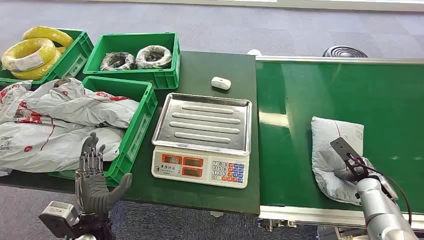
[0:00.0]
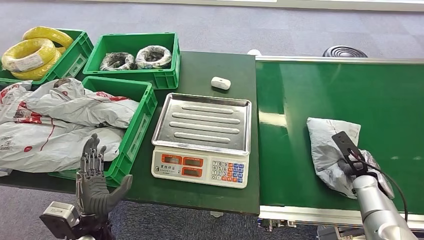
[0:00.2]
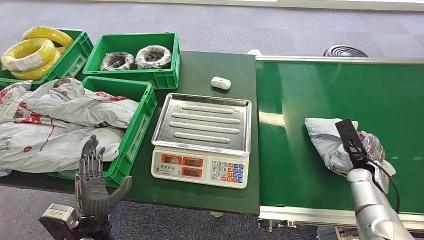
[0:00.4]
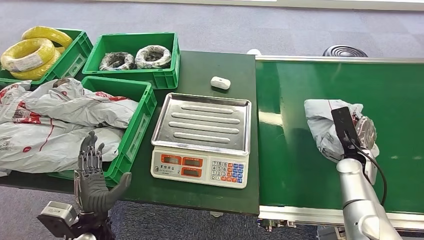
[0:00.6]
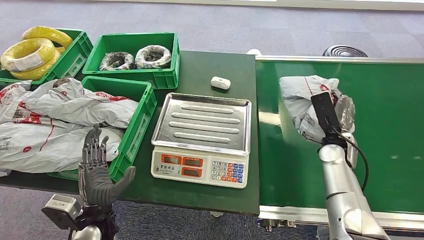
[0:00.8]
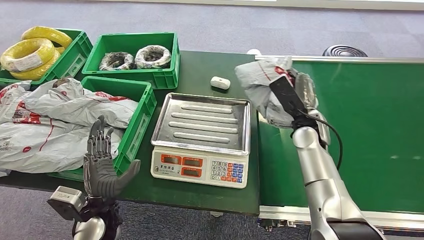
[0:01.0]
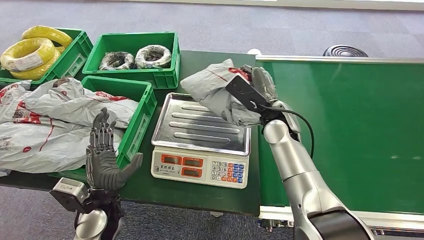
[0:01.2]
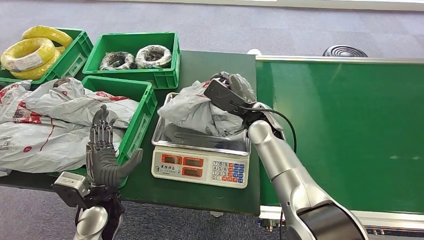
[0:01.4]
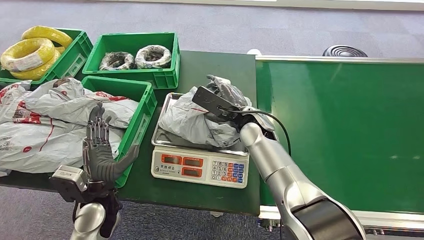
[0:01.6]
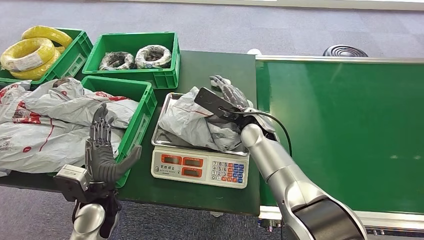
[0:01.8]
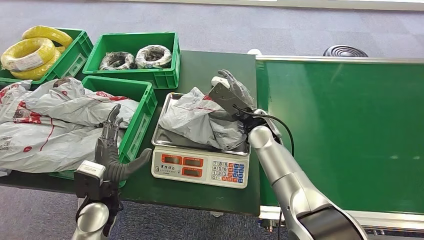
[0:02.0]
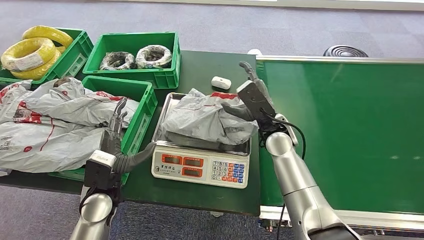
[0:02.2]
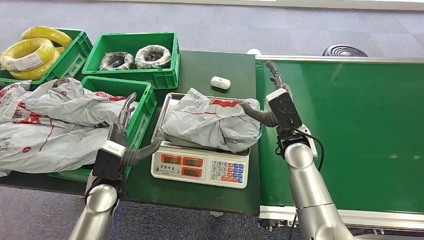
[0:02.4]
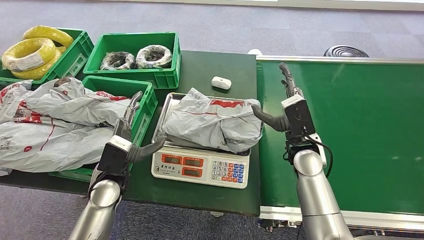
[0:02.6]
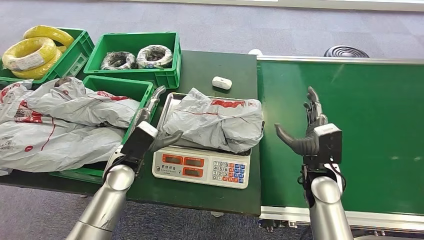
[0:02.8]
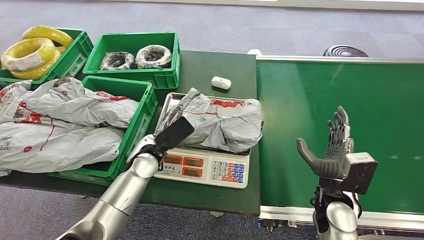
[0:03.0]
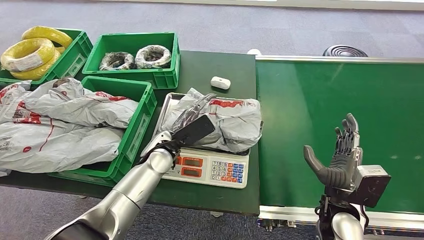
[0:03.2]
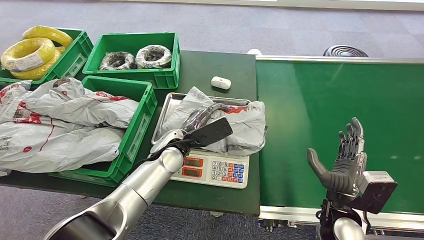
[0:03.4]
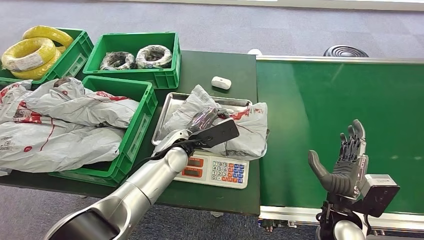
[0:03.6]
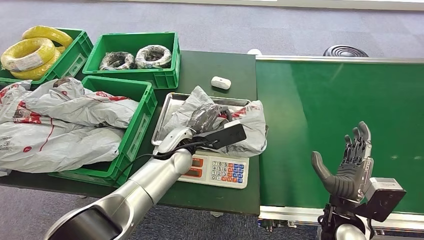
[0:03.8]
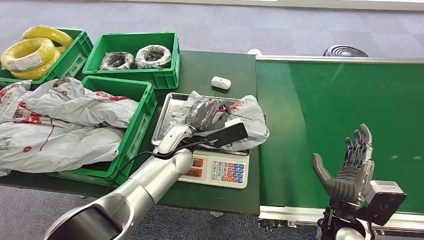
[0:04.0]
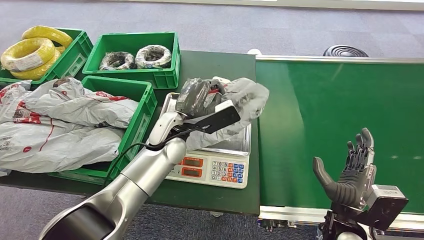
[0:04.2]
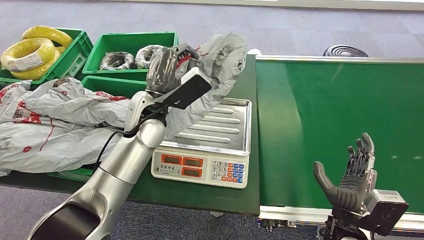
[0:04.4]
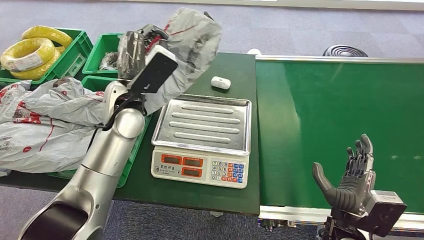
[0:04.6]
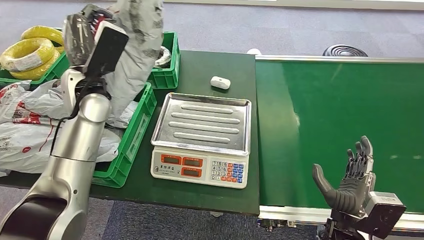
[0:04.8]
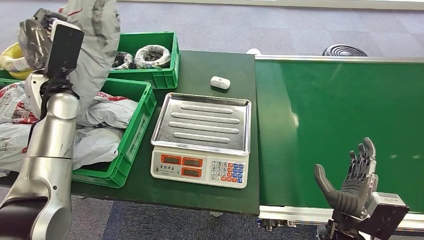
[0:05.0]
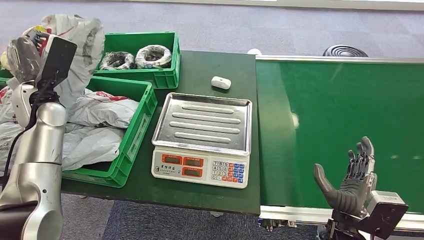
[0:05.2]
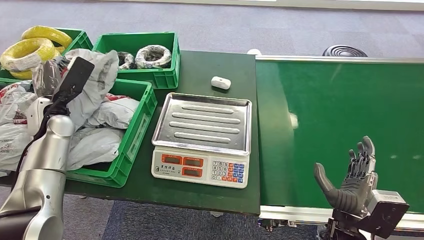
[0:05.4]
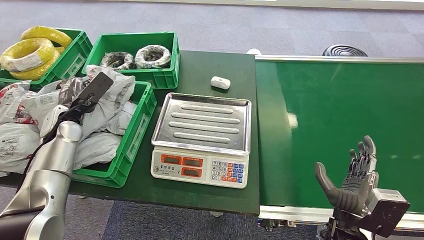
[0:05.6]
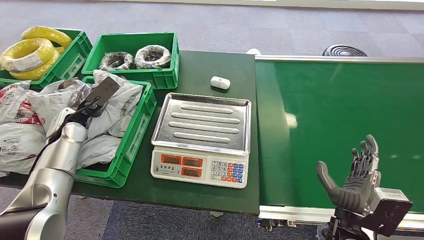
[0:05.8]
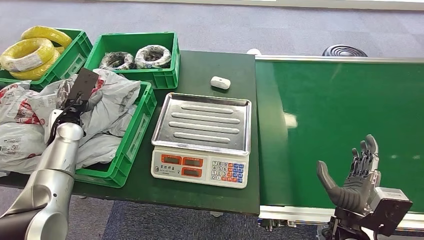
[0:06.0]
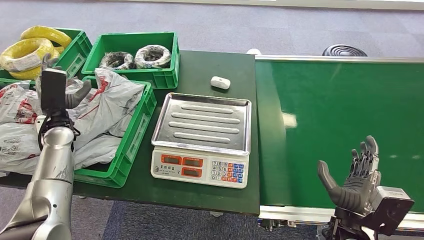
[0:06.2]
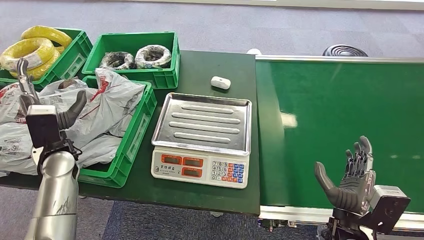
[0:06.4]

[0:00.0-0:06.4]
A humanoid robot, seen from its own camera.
Task of the whole recording: Weigh the package on the weighing device and place it in the left basket.
Step, 0:00.0 to 0:00.6: Pick up the package from the conveyor belt.
Step, 0:01.4 to 0:02.8: Place the package onto the inbound machine.
Step, 0:03.0 to 0:04.6: Pick up the package from the inbound machine.
Step, 0:04.8 to 0:06.4: Place the package into the parcel locker.
